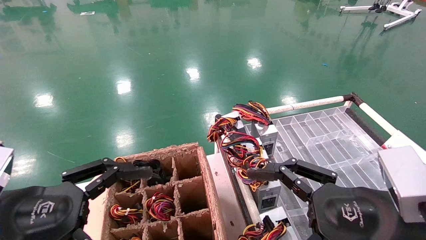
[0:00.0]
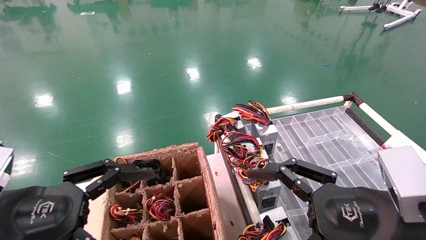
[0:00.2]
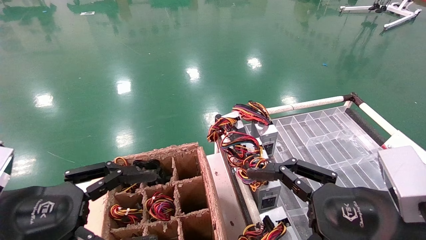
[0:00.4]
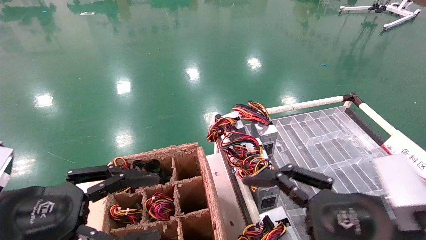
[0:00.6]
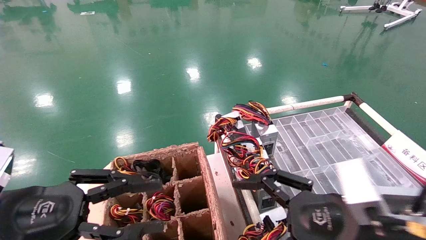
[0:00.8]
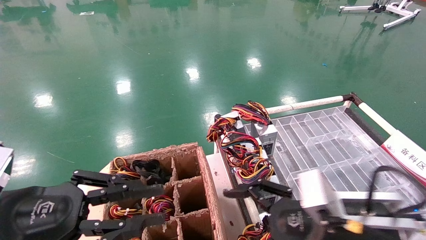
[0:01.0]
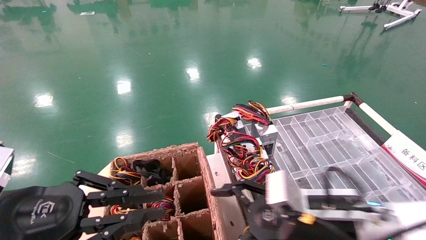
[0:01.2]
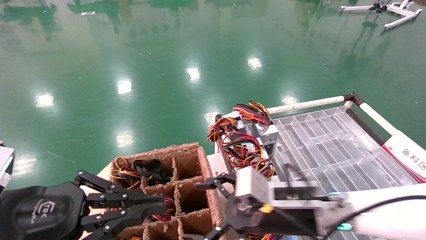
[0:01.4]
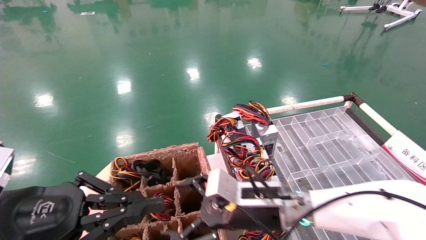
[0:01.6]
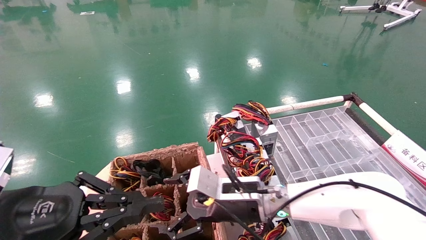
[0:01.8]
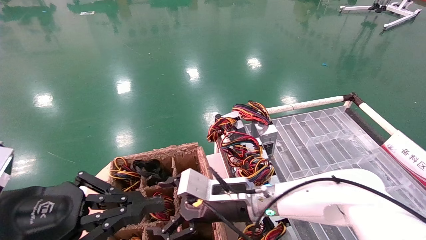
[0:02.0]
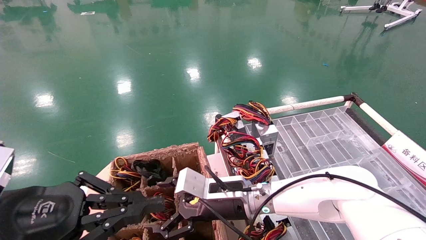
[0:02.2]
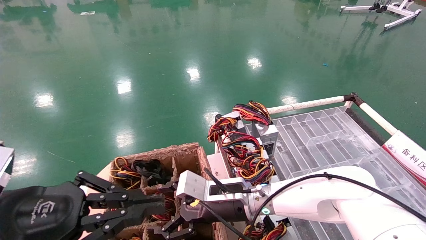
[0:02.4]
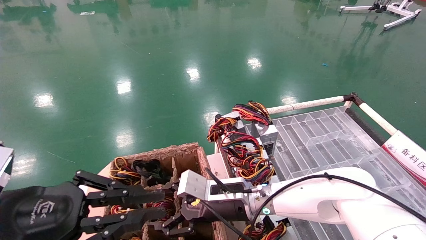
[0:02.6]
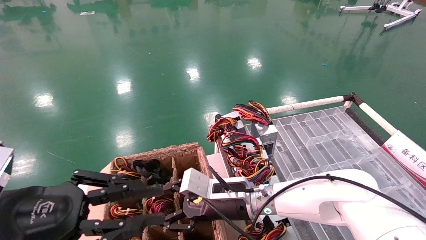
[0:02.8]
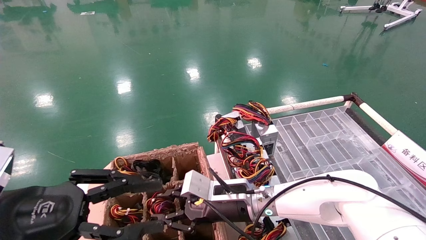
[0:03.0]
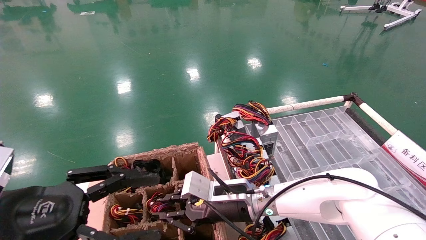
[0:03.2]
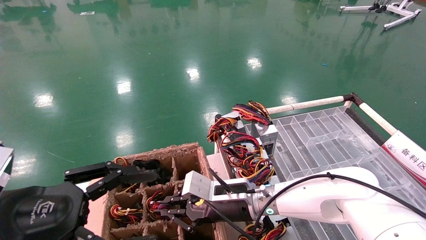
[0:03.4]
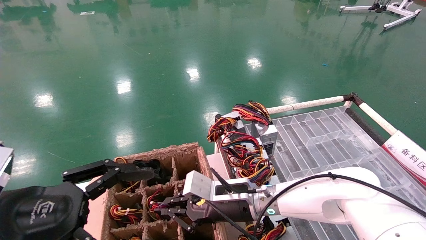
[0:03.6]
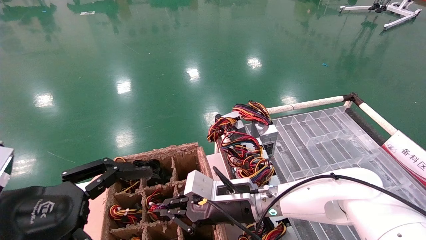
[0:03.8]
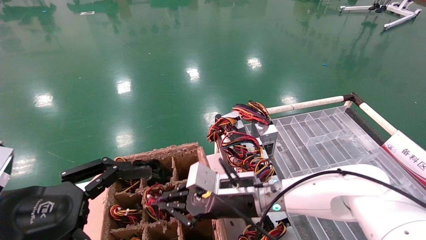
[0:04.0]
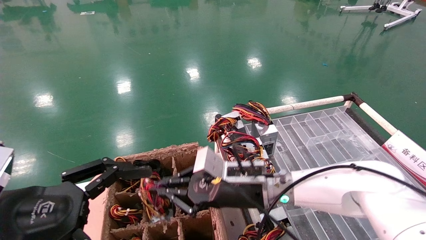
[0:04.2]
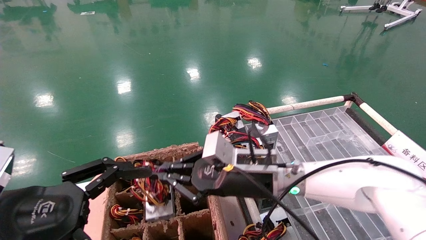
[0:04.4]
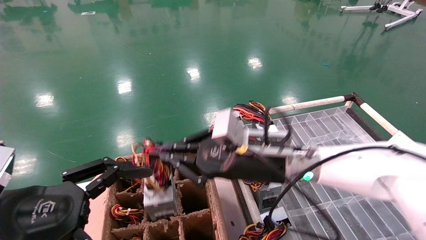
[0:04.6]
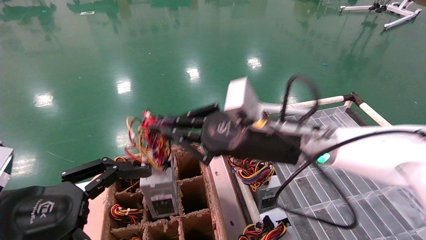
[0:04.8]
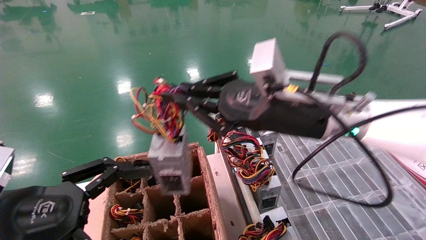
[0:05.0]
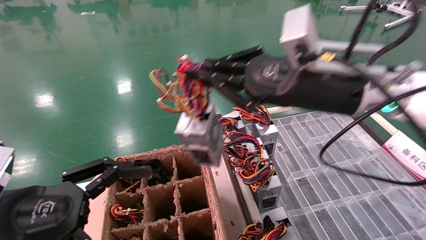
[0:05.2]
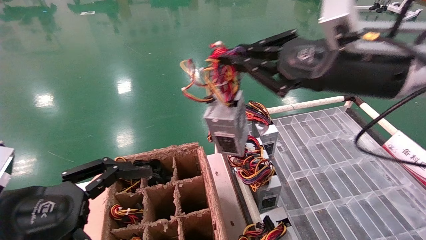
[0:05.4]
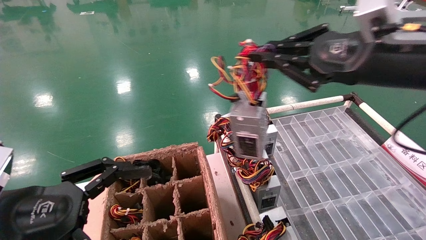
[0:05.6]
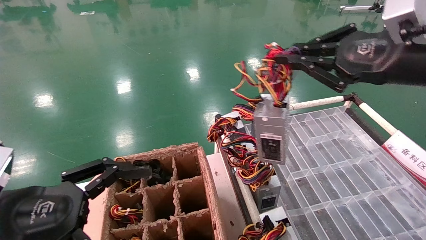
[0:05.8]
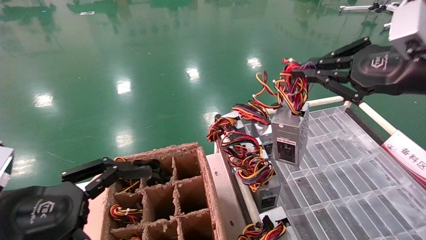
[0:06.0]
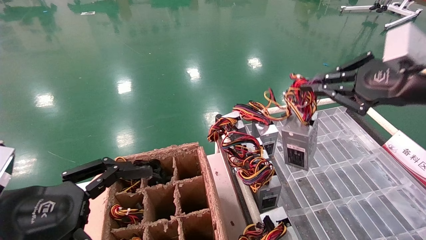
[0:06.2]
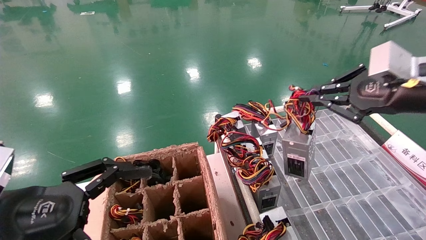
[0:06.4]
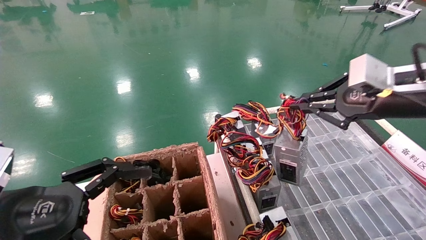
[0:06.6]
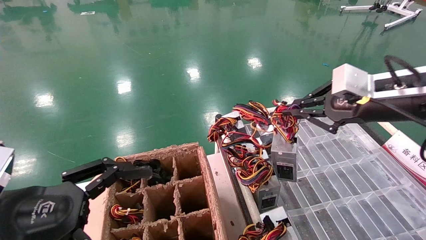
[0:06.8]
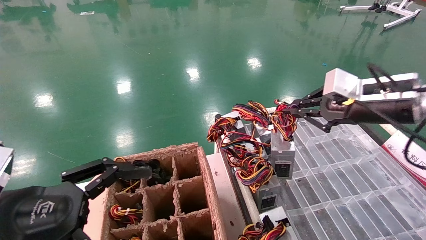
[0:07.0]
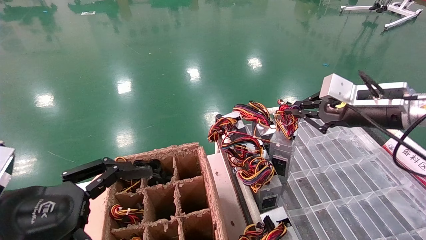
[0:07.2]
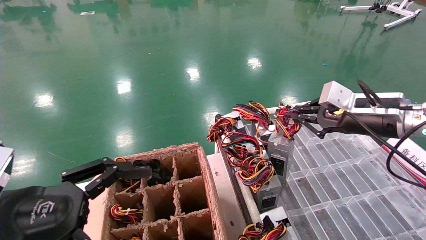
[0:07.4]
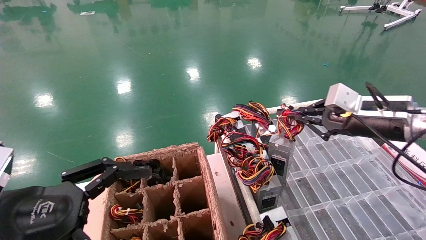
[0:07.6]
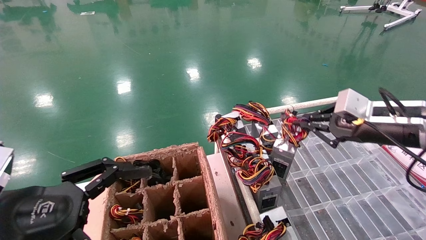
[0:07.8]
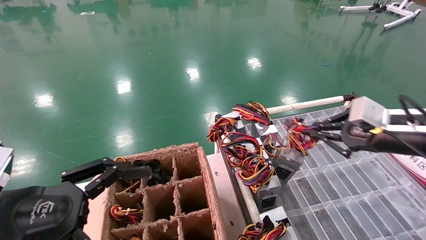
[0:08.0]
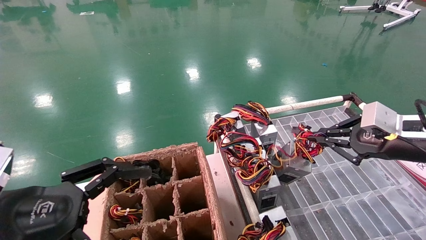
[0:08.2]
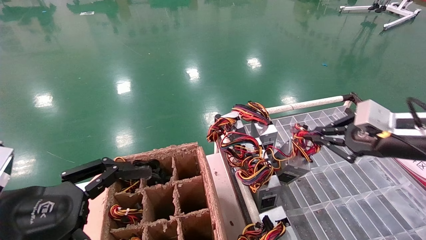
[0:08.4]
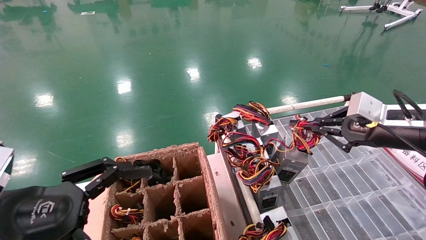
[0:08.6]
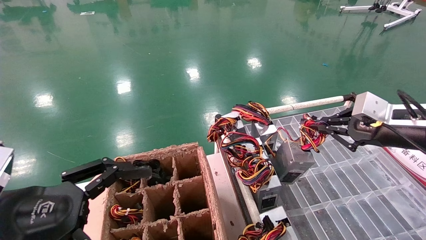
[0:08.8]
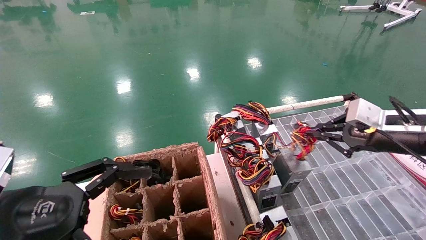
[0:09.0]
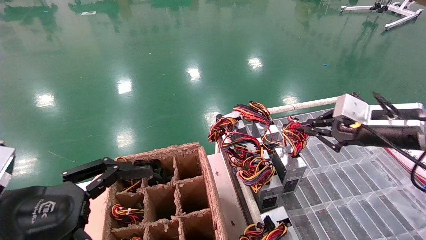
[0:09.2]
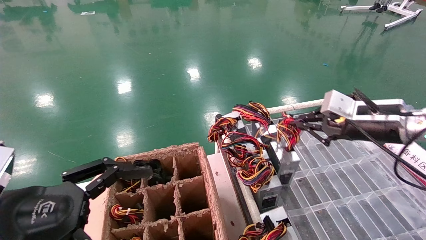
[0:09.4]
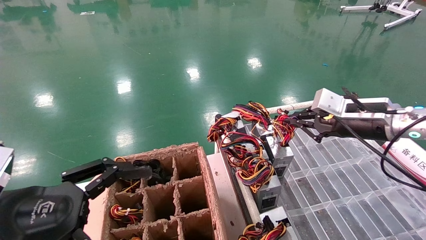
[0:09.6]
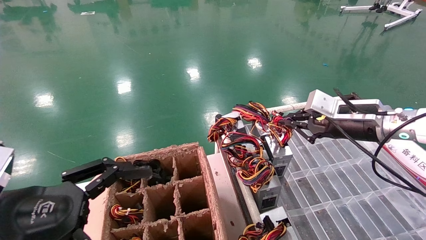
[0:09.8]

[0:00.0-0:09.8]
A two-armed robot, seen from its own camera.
Step, 0:00.8 to 0:03.6: Grab and lift the power supply from the large box.
0:00.0 to 0:01.4: The right gripper goes approximately 20 cm forward, to the left and downward. The left gripper closes up.
0:01.4 to 0:02.8: The right gripper heads to the left and forward, covering approximately 10 cm.
0:02.8 to 0:04.2: The right gripper changes place by some 5 cm, and closes its fingers. The left gripper opens.
0:04.2 to 0:05.6: The right gripper moves upward, to the right and backward, about 30 cm.
0:05.6 to 0:07.0: The right gripper moves forward, downward and to the right, about 10 cm.
0:07.0 to 0:08.4: The right gripper heads downward and to the right, covering about 10 cm.
0:08.4 to 0:09.8: The right gripper travels forward and to the left by roughly 10 cm.

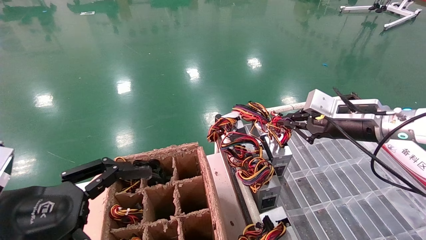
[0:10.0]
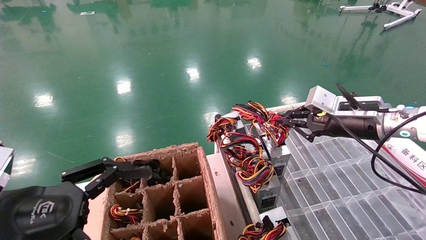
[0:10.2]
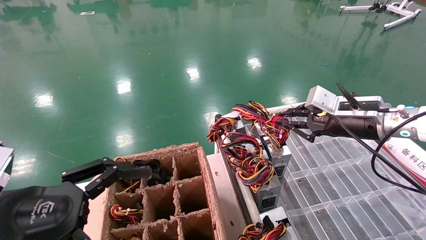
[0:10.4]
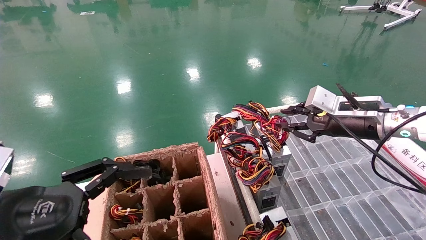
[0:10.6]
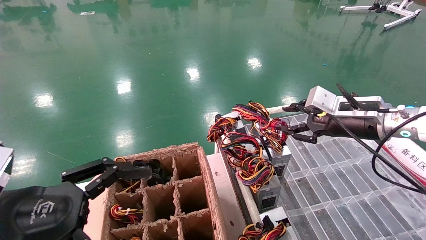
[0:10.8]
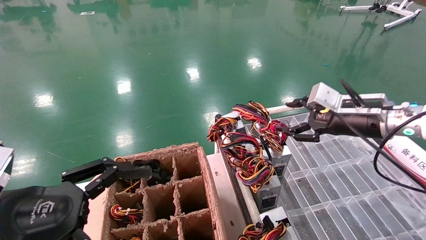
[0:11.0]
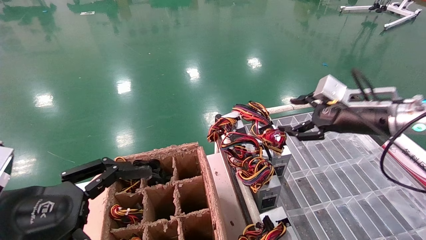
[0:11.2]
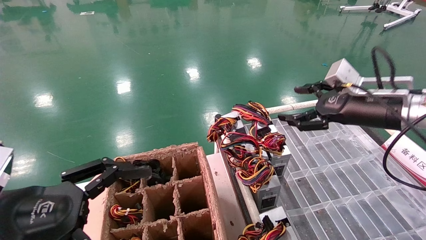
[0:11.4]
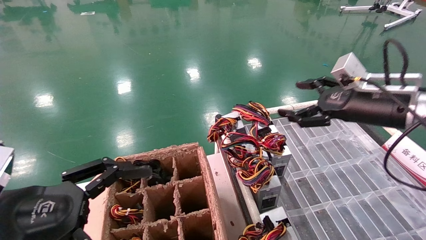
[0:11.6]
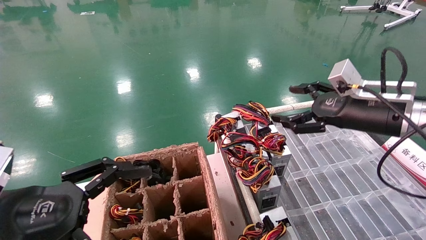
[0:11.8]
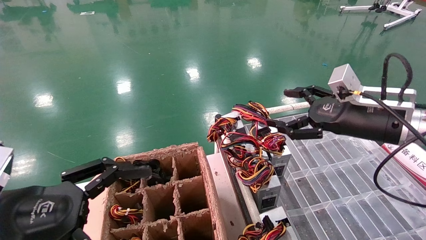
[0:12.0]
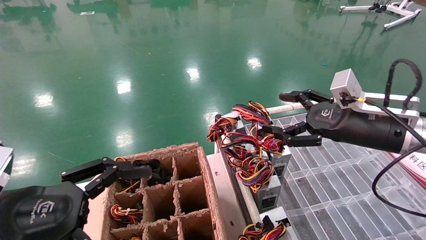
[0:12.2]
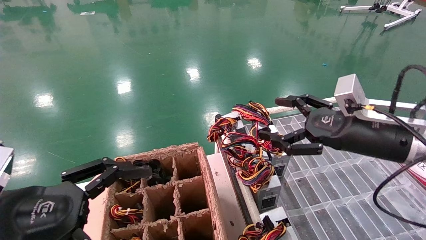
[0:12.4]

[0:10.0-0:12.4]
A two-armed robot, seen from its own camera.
0:10.0 to 0:11.2: The right gripper opens.
0:11.2 to 0:12.4: The right gripper travels backward by about 5 cm.
